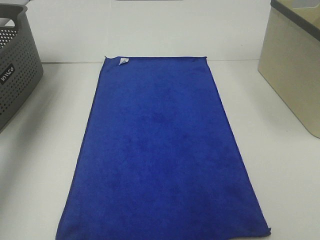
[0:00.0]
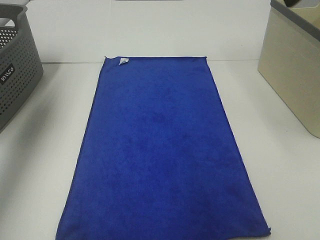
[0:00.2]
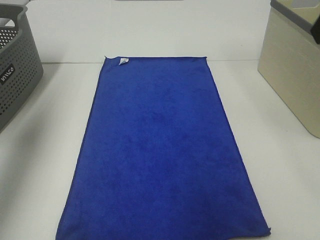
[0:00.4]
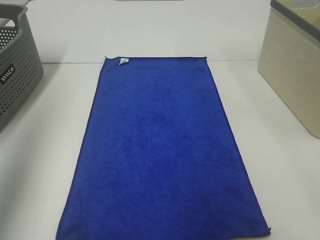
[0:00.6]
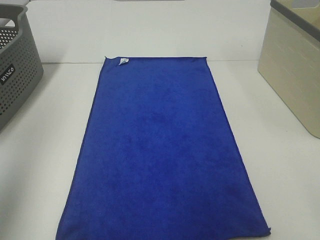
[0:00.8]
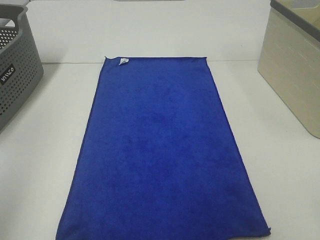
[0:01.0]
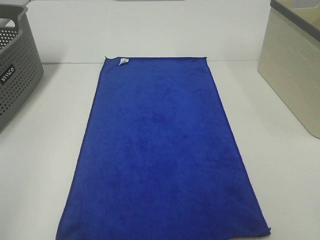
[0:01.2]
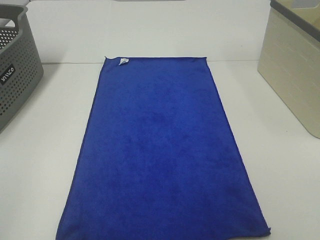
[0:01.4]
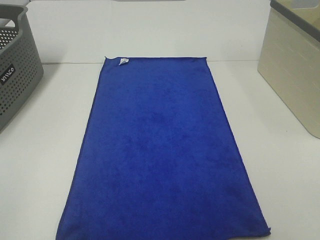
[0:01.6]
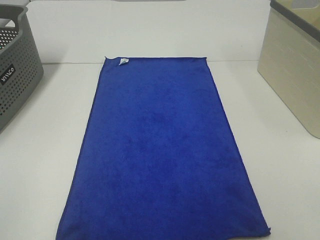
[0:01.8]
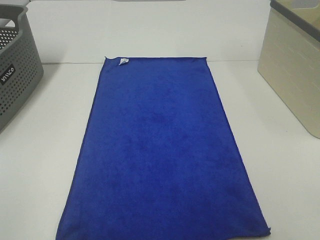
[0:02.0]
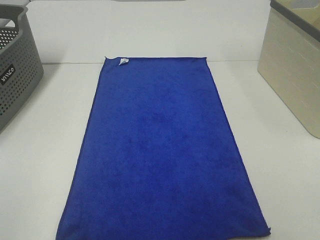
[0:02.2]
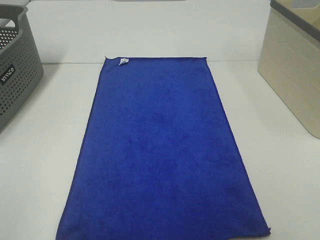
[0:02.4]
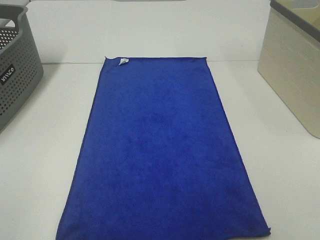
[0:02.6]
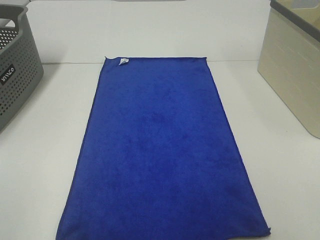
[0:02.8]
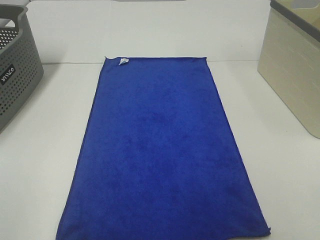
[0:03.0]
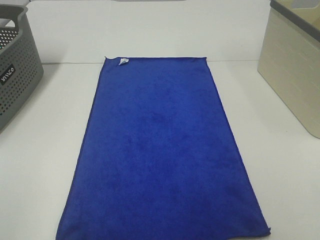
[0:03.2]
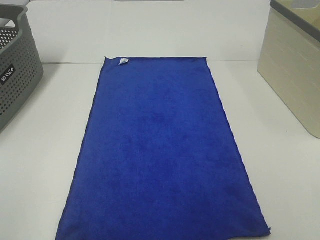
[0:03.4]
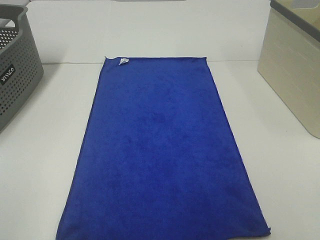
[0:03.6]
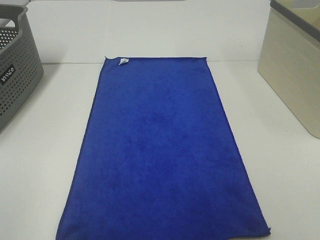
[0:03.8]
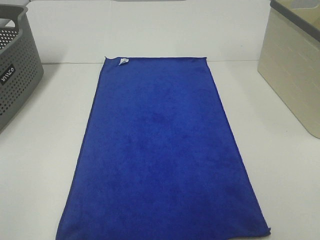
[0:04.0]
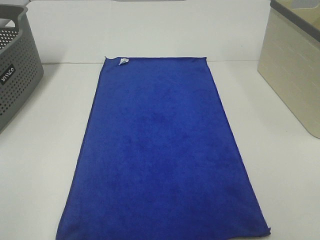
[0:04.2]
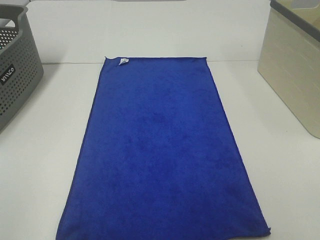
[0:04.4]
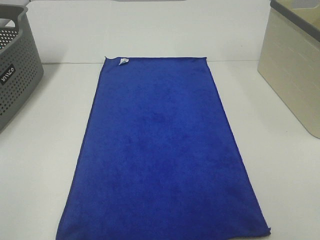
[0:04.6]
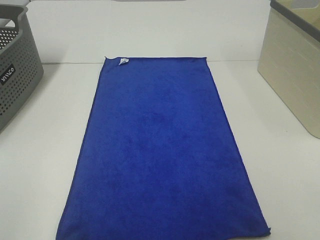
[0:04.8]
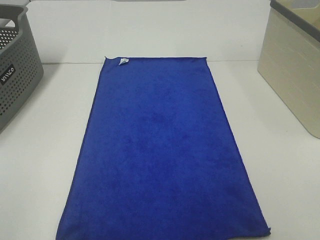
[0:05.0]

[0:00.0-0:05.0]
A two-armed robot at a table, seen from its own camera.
Task of the whole recording: Remove the towel and place it.
0:00.0 to 0:01.6: The grippers both shift backward by approximately 40 cm.
0:03.4 to 0:05.0: Both grippers stay put.

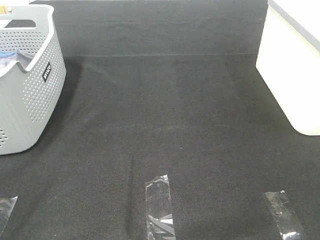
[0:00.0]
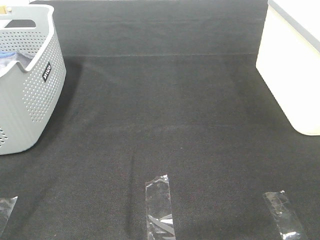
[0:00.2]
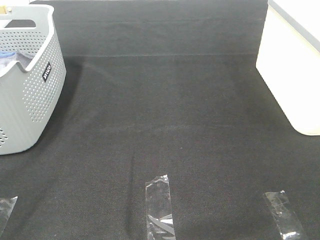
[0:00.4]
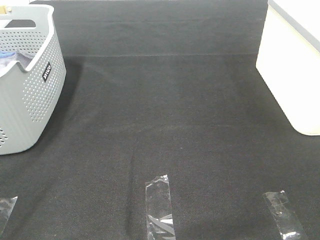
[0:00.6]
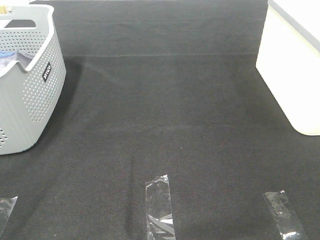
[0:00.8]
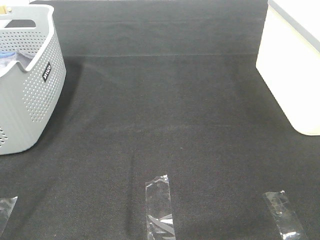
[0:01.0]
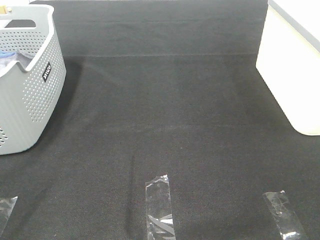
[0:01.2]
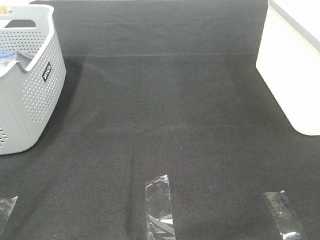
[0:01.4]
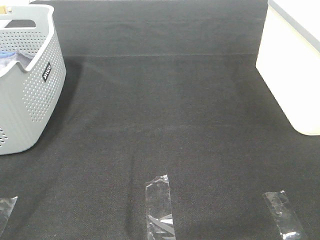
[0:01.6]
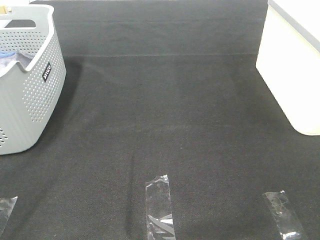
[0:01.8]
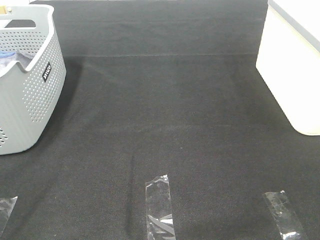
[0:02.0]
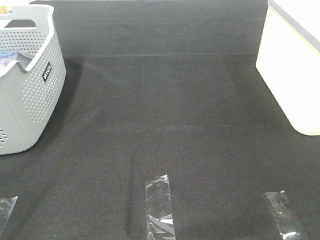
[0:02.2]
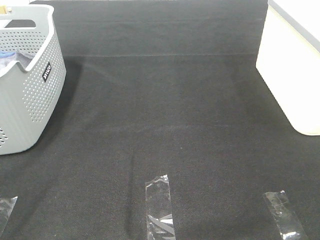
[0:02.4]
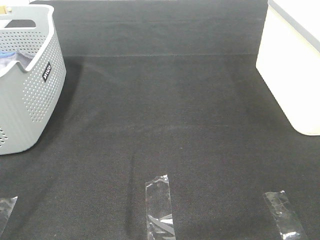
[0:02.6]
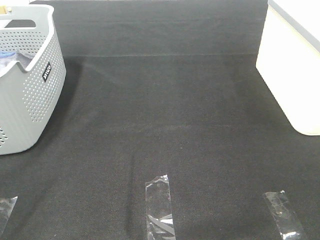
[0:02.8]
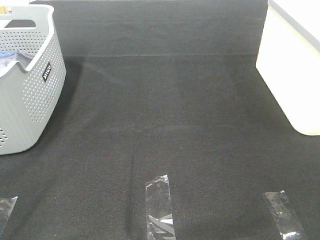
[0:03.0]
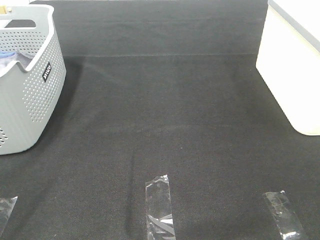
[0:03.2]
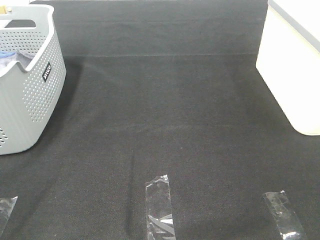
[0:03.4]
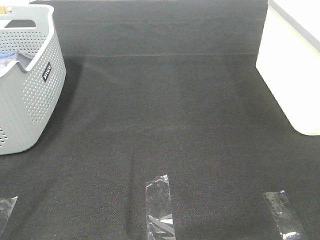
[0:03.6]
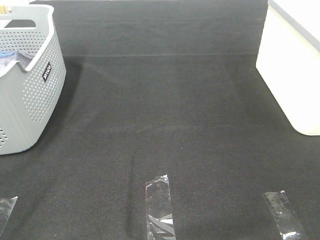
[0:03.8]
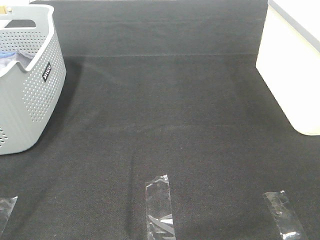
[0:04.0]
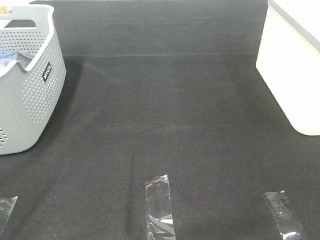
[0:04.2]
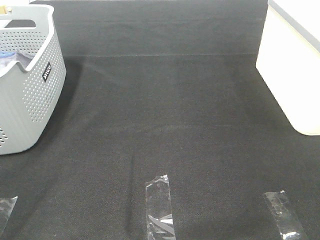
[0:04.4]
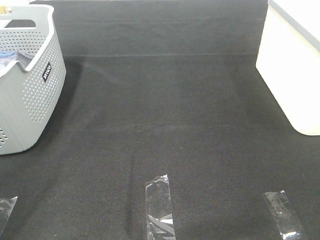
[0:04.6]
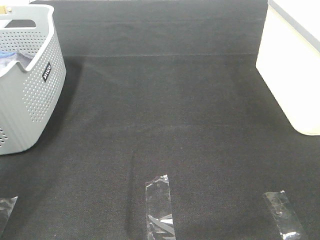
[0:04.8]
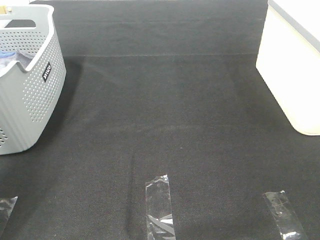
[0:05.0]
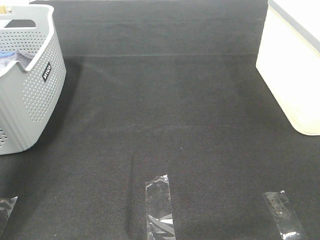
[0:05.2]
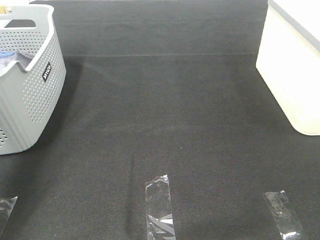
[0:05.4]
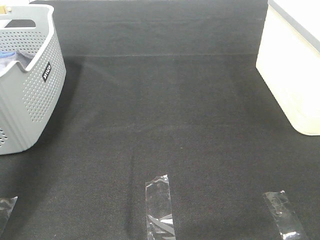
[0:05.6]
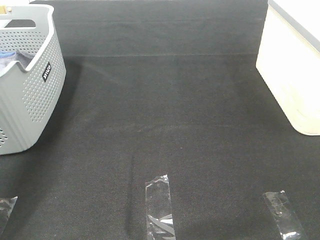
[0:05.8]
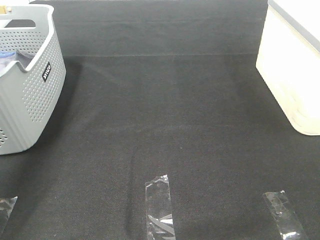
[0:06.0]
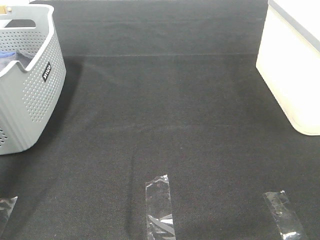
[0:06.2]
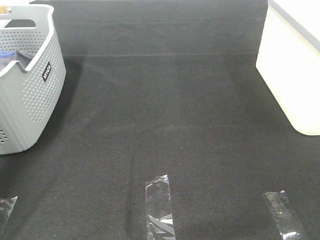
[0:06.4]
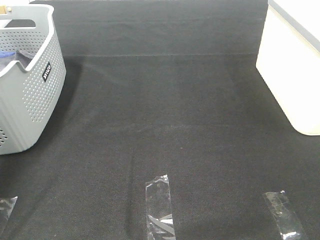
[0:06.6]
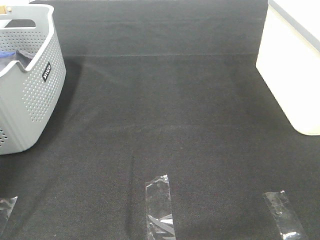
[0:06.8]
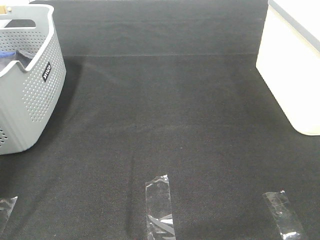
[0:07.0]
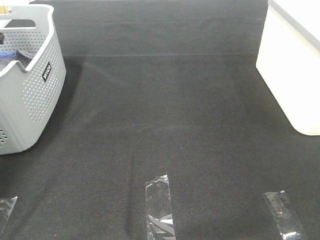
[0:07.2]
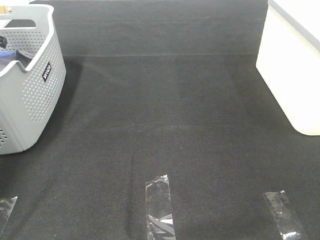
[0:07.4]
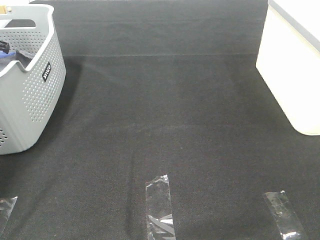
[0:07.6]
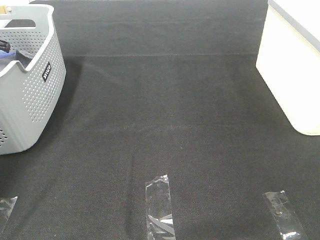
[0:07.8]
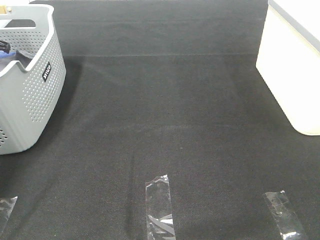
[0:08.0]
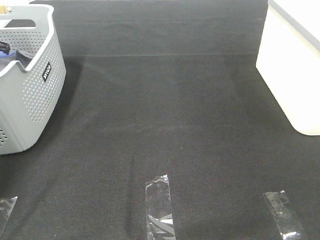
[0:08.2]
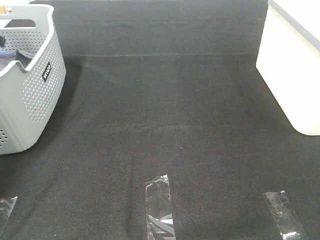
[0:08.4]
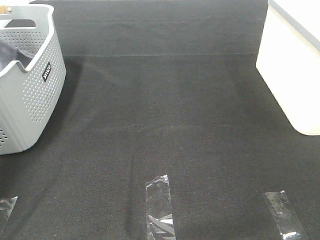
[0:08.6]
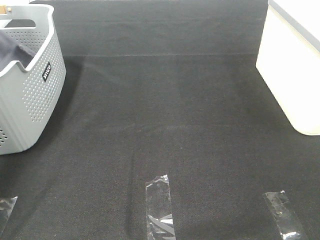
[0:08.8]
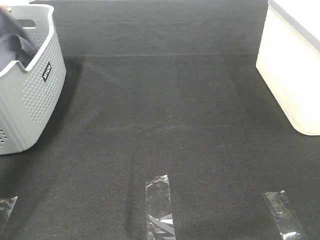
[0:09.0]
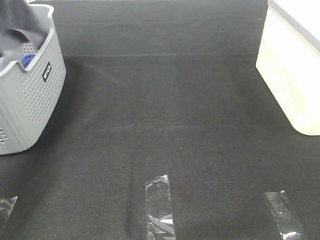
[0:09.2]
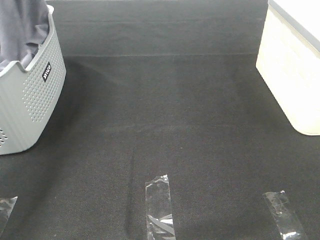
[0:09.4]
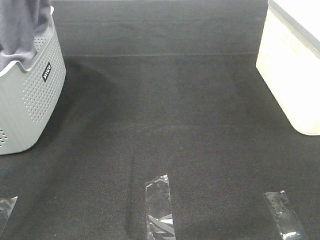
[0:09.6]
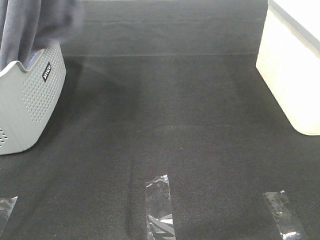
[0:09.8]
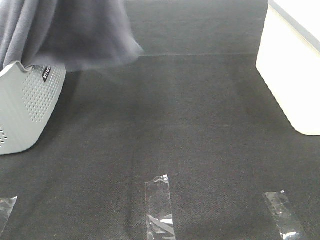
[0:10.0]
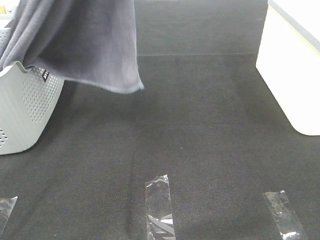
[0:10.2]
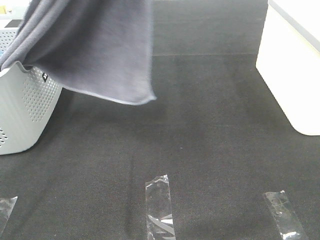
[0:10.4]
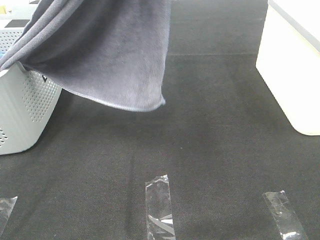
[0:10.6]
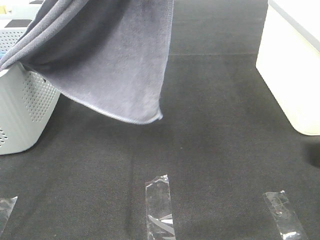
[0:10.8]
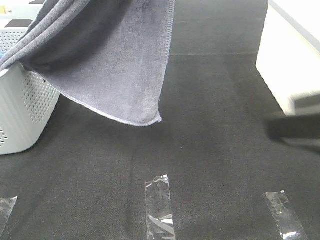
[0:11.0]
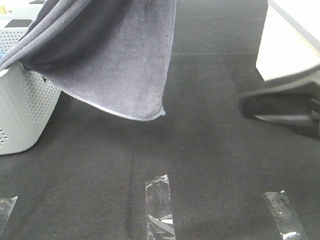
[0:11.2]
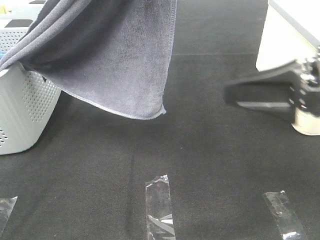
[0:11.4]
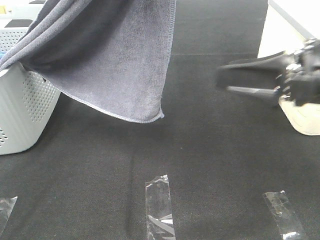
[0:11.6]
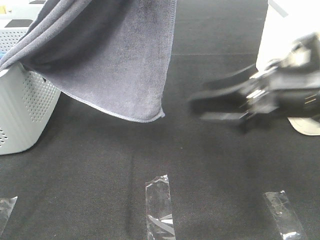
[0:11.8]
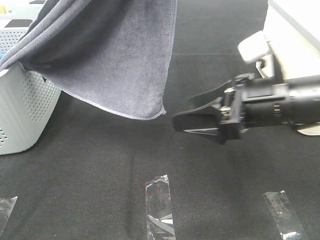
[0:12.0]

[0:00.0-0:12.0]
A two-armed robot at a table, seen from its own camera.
Task of the whole recording: Remove the towel and place it.
0:00.0 to 0:03.0: The two grippers keep their place.
0:04.4 to 0:06.0: The left gripper goes roughly 40 cm forward.
0:06.0 to 0:07.6: The left gripper goes approximately 20 cm downward, forward and to the left.
0:07.6 to 0:09.0: The left gripper heads upward, covering approximately 20 cm, and closes.
0:09.0 to 0:10.4: The left gripper travels to the right, backward and upward by some 35 cm.
0:10.4 to 0:12.0: The right gripper moves forward, downward and to the left, about 30 cm.

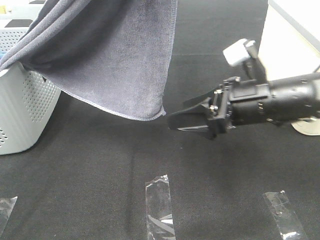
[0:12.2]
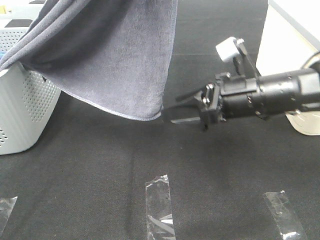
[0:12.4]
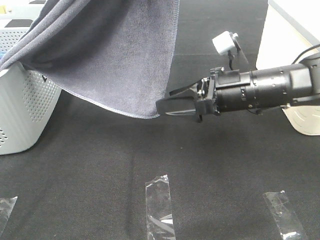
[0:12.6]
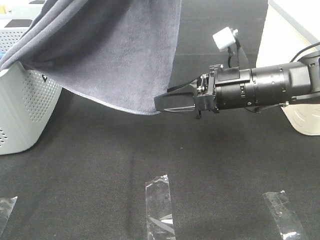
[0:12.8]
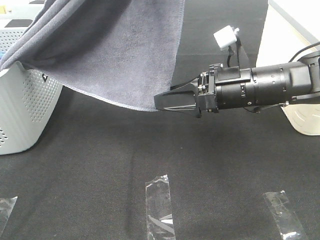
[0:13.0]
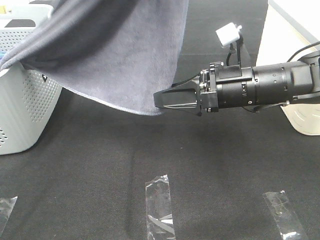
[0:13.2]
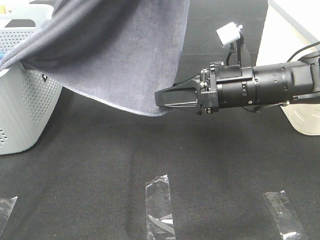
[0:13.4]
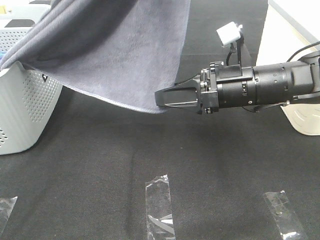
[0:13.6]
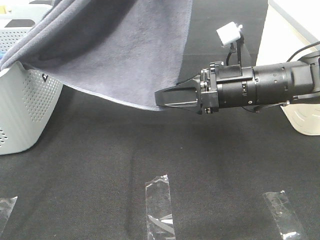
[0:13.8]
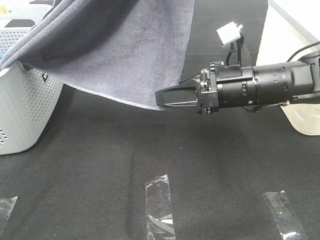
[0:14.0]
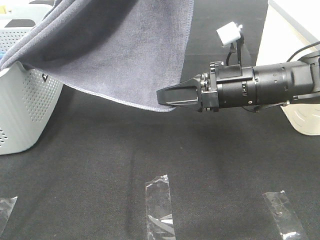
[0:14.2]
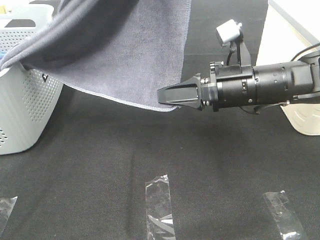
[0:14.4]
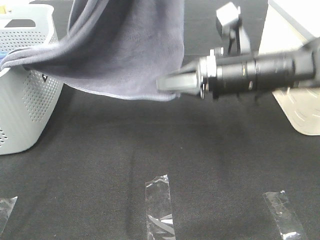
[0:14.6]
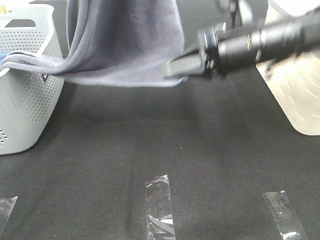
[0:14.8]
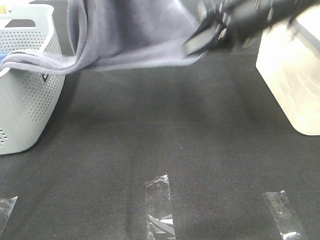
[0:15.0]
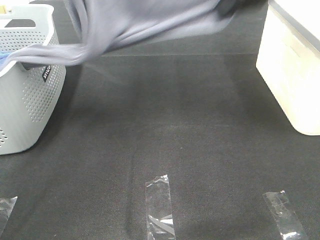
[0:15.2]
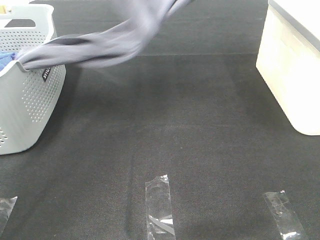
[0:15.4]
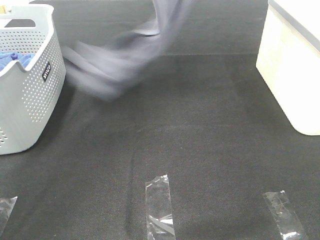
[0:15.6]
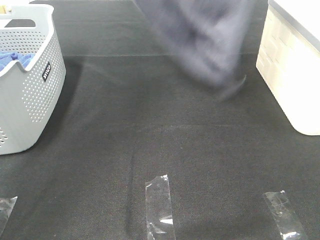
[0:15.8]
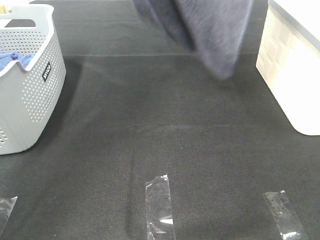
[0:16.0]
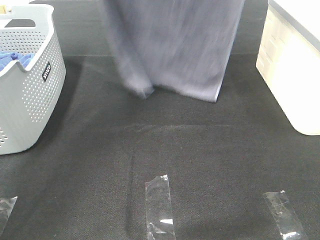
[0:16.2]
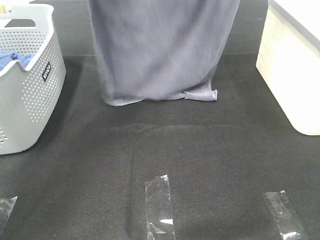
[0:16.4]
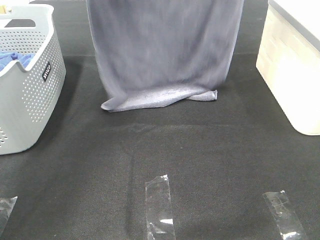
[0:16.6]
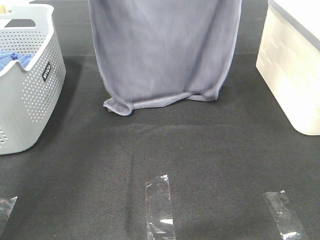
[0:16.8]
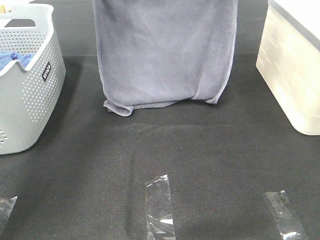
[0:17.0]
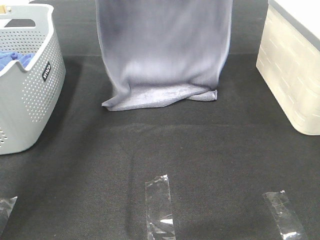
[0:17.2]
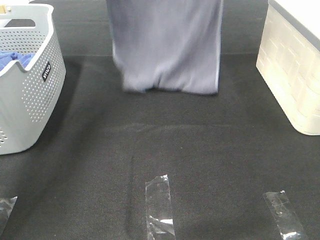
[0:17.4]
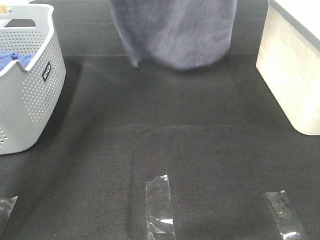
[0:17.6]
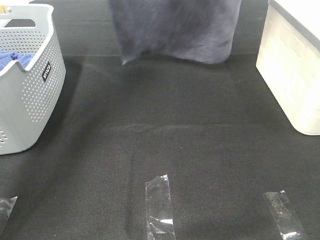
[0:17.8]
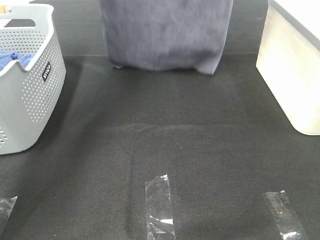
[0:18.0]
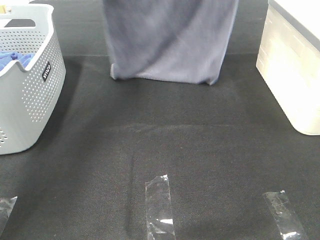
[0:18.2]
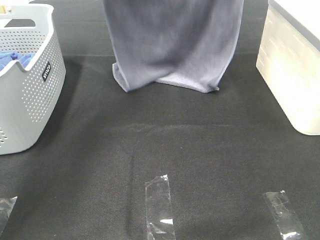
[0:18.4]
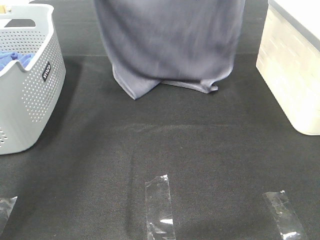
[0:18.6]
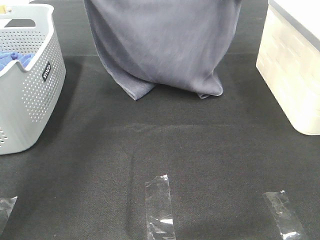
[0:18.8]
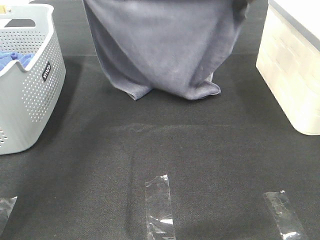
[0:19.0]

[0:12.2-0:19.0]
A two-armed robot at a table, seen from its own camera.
Task of the whole recording: Remove the towel and place it.
Step, 0:13.2 to 0:17.4: Left hand: spread the grey towel flat on the table.
Step, 0:13.2 to 0:17.4: Right hand: spread the grey towel flat on the table.
0:12.2 to 0:13.6: The right gripper closes.
0:13.6 to 0:15.0: The right gripper heads upward, covering approximately 15 cm, and closes up. Meanwhile the left gripper moves forward and to the left, approximately 10 cm.
0:15.0 to 0:16.2: The right gripper travels upward by some 20 cm. The left gripper moves forward, roughly 5 cm, and goes upward and returns, roughly 10 cm each way.
0:16.2 to 0:17.6: The left gripper goes approximately 5 cm forward, and goes downward and returns, about 15 cm each way; the right gripper moves roughly 15 cm downward and comes back.
0:17.6 to 0:19.0: The grippers both shift downward by approximately 15 cm.
